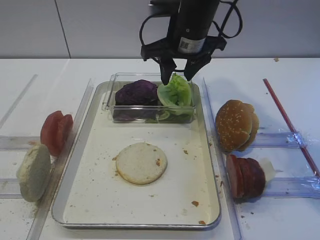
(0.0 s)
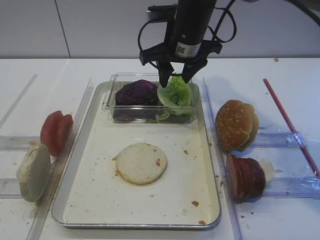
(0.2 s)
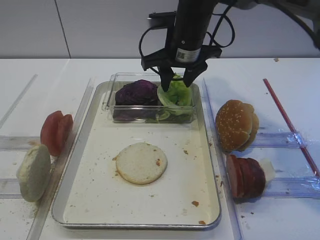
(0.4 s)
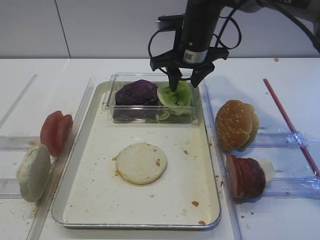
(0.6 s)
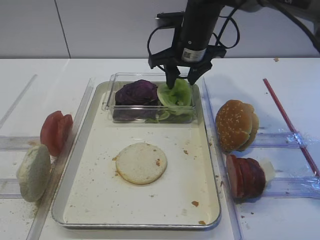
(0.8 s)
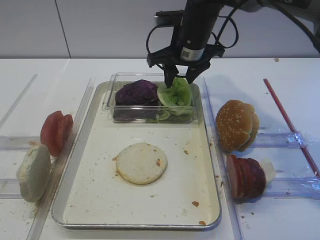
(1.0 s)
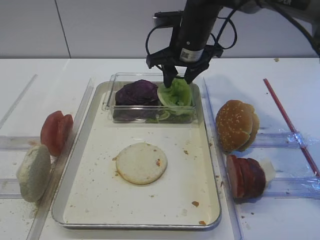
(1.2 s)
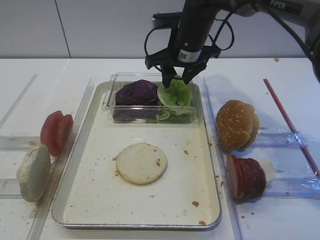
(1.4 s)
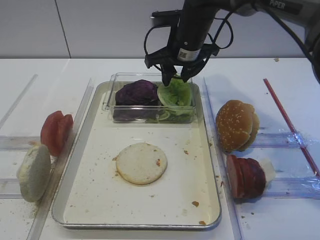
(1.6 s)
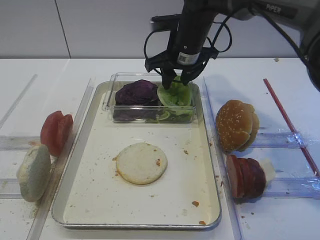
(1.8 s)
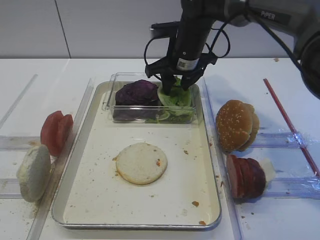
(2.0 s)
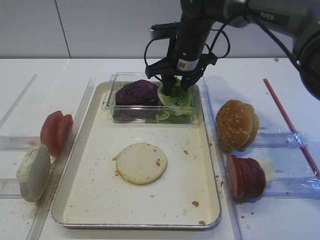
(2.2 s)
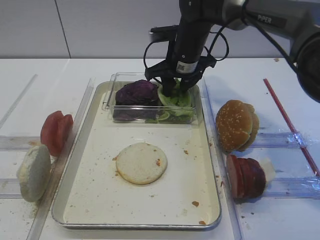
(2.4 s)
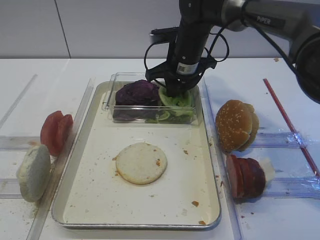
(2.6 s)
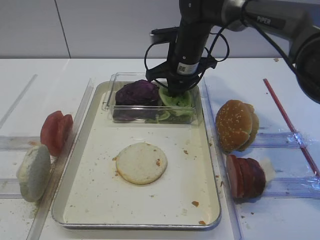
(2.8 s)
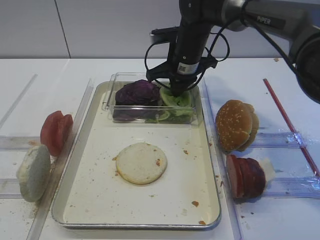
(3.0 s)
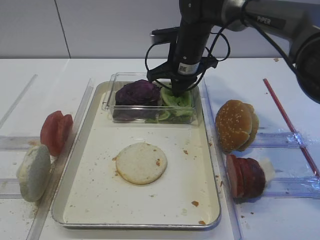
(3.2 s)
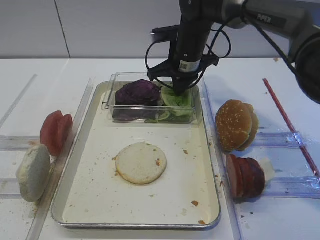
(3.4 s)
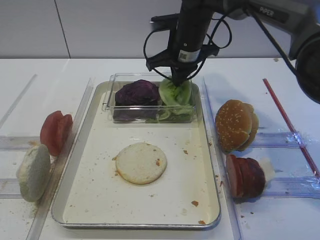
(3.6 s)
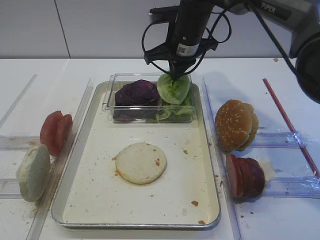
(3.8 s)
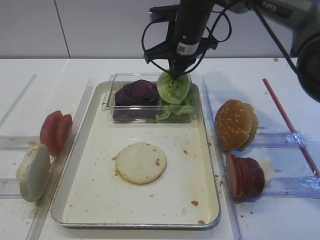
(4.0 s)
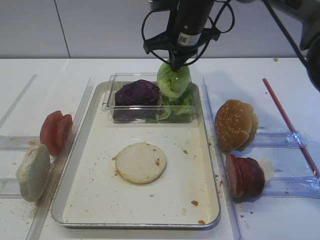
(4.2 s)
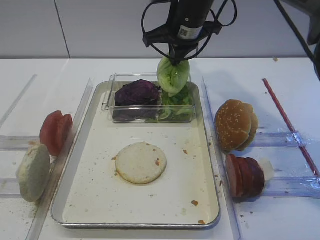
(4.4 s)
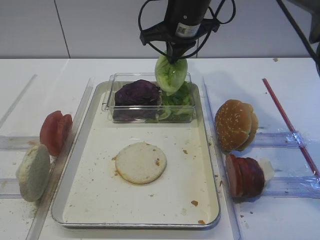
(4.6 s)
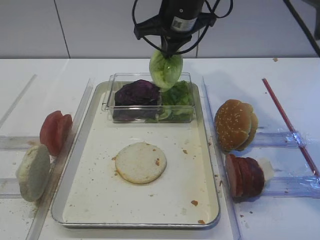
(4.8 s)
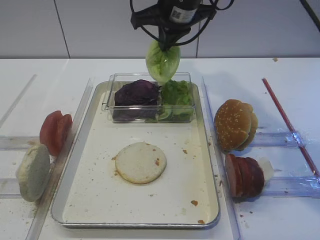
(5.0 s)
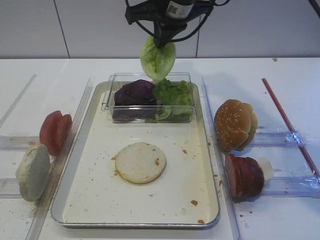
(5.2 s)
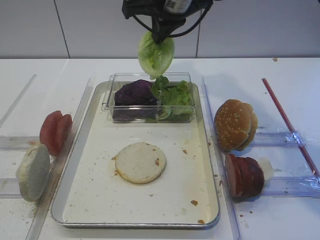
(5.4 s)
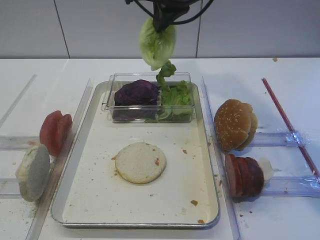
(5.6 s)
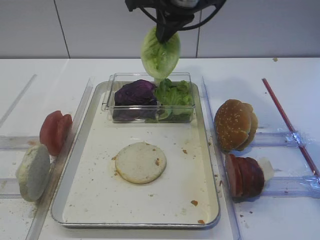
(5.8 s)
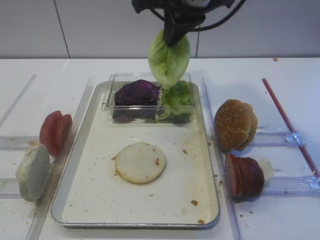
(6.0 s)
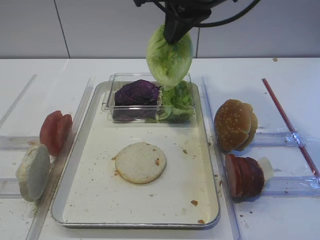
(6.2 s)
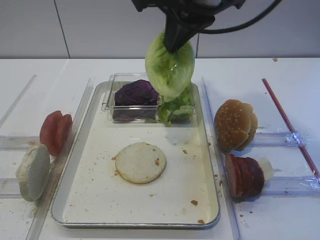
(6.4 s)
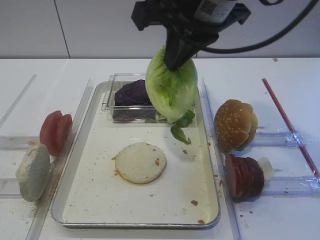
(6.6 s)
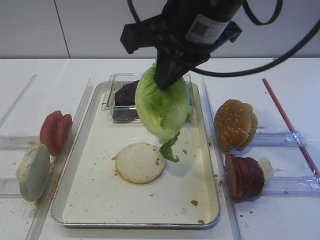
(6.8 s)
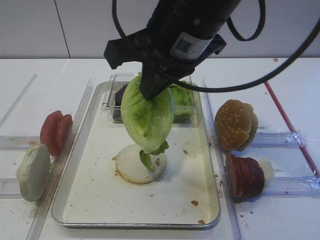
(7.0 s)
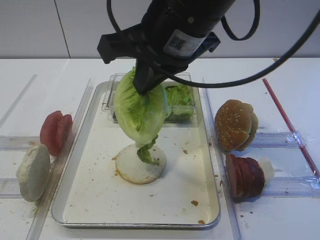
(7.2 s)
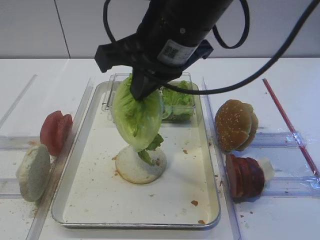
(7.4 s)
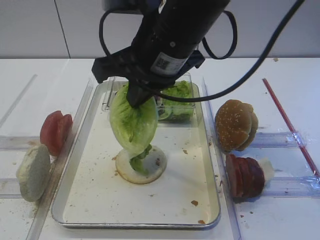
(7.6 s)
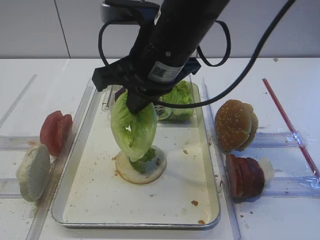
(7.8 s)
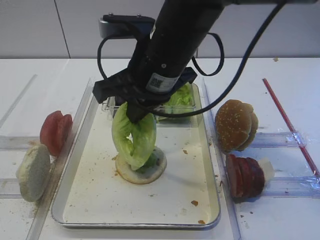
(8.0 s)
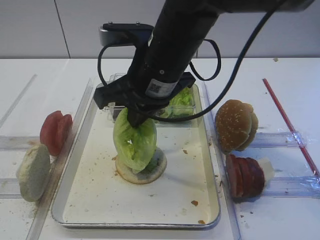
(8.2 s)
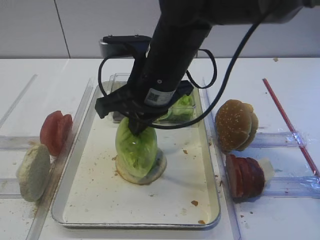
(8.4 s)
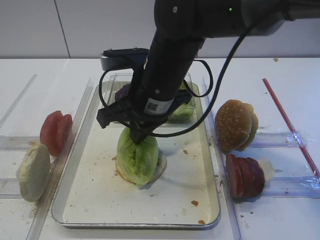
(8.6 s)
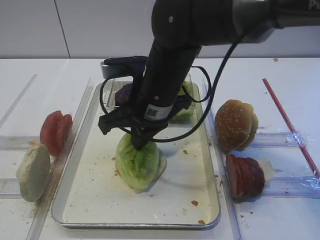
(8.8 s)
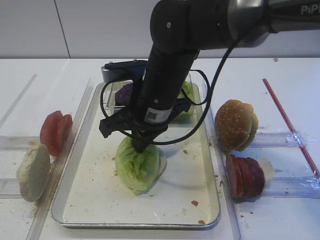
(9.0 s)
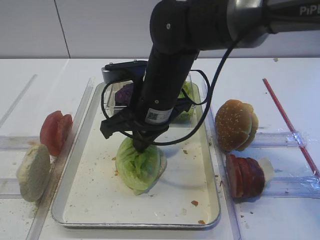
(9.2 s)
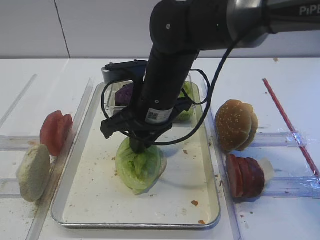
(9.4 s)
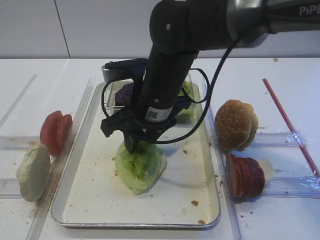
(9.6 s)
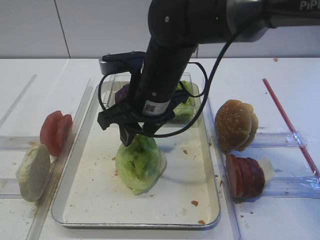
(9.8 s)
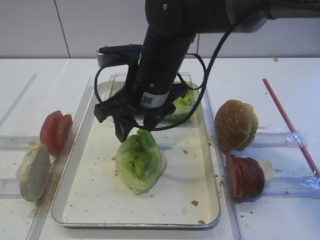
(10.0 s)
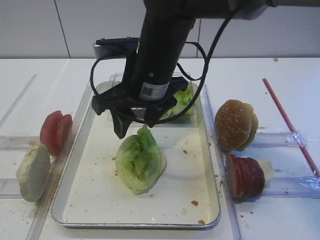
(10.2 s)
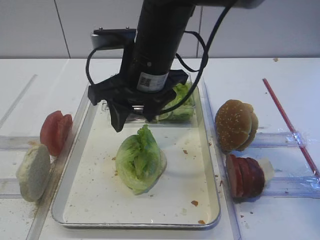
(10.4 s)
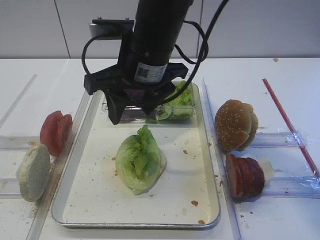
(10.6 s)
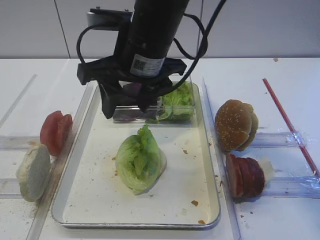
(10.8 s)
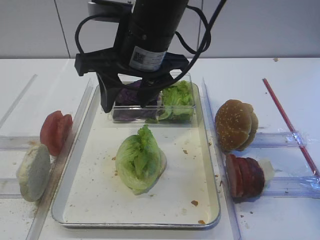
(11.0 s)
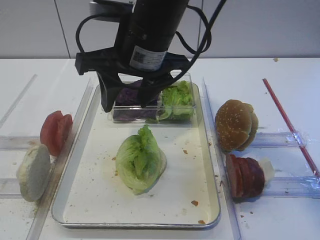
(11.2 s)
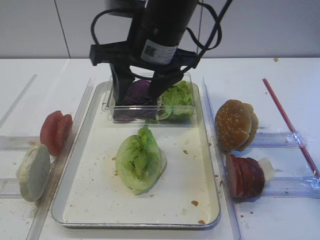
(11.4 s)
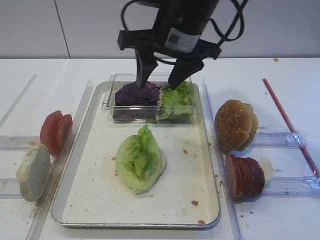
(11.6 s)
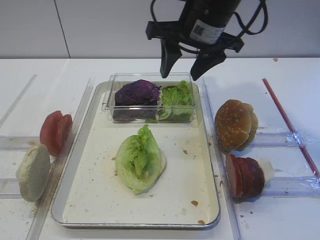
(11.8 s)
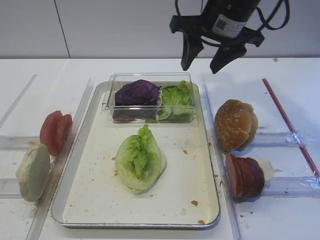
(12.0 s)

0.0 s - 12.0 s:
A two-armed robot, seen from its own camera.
Step, 0.0 s - 3.8 s: Pick up the lettuce leaf with the right gripper.
Step, 4.0 s - 9.8 s: Place the lettuce leaf on the bread slice with the right gripper.
0.0 s - 1.6 s: The right gripper shifts by about 5 cm.
1.6 s - 3.0 s: The right gripper closes.
3.0 s - 4.4 s: The right gripper is displaced upward by some 10 cm.
4.4 s - 6.0 s: The right gripper is displaced backward and upward by roughly 15 cm.
6.0 s - 7.6 s: The right gripper heads backward and downward, covering about 10 cm.
7.6 s - 9.0 s: The right gripper goes some 10 cm downward.
9.0 s - 10.4 s: The right gripper heads upward, covering about 5 cm, and opens.
10.4 s - 12.0 s: The right gripper travels to the right and forward by roughly 15 cm.

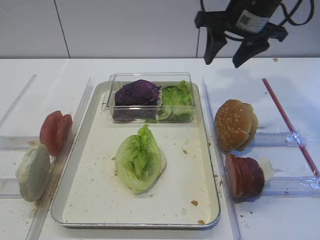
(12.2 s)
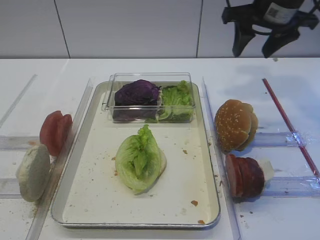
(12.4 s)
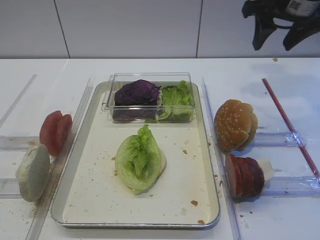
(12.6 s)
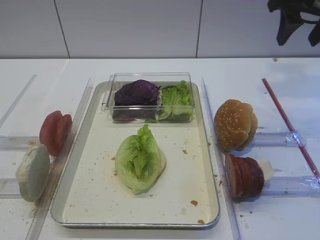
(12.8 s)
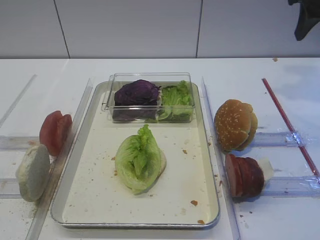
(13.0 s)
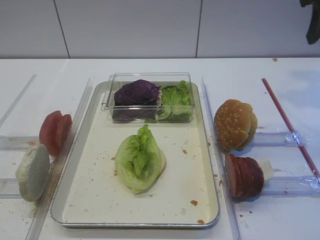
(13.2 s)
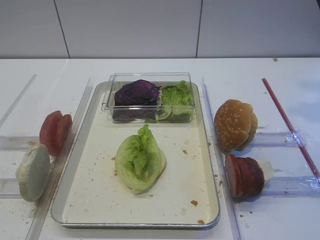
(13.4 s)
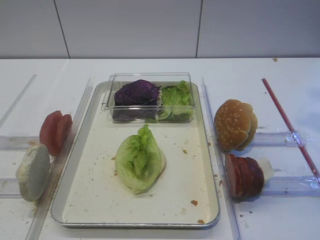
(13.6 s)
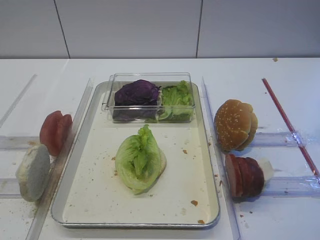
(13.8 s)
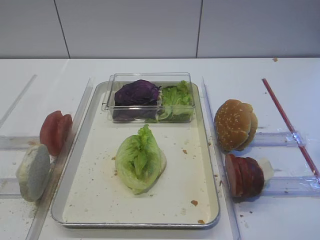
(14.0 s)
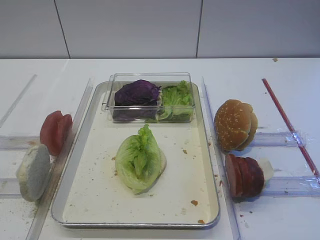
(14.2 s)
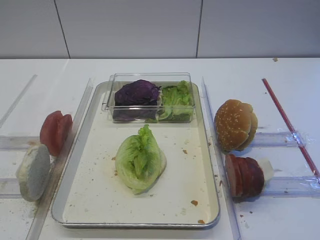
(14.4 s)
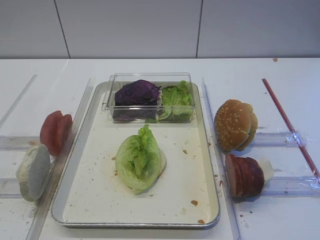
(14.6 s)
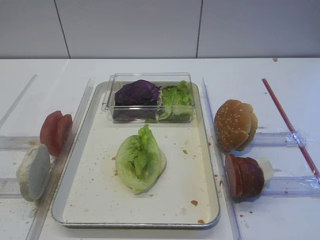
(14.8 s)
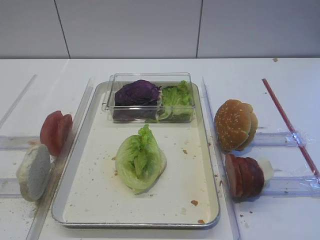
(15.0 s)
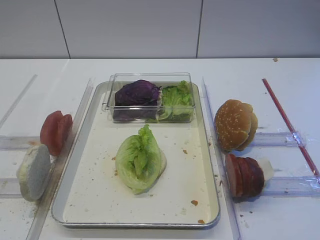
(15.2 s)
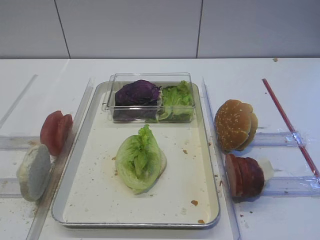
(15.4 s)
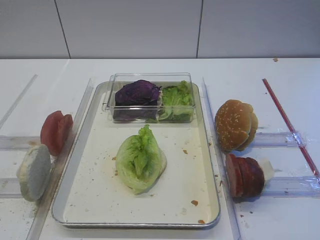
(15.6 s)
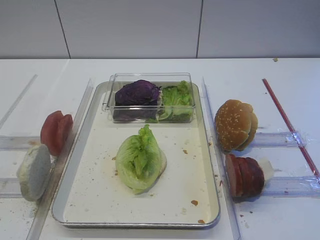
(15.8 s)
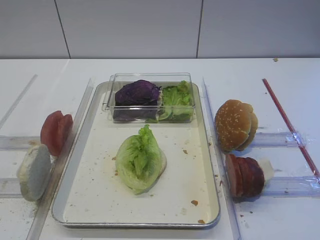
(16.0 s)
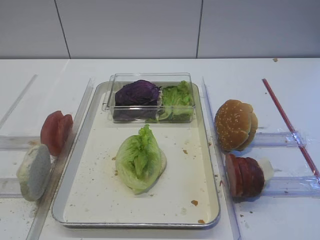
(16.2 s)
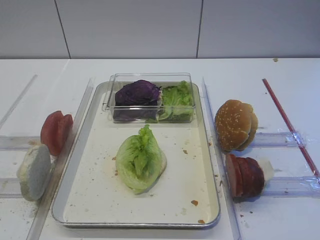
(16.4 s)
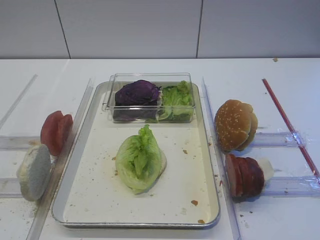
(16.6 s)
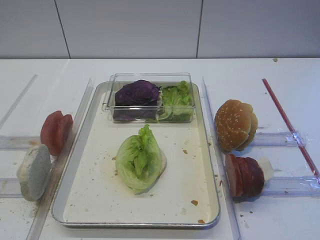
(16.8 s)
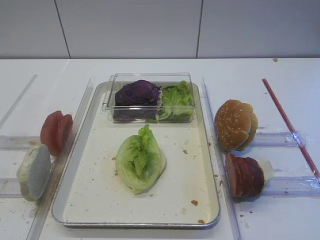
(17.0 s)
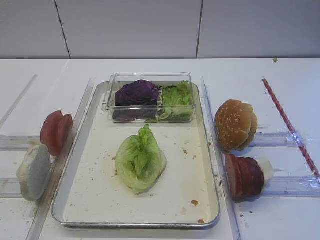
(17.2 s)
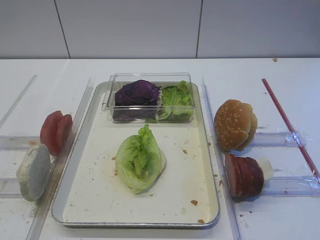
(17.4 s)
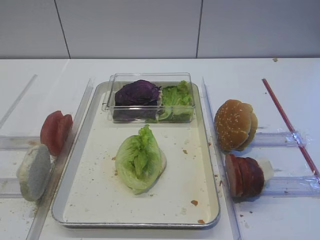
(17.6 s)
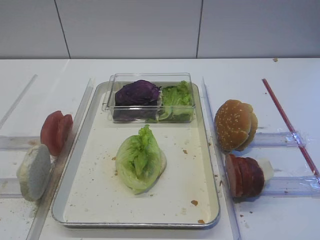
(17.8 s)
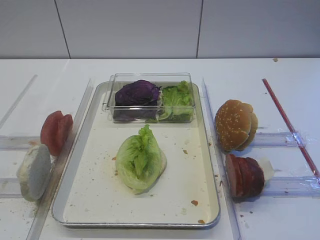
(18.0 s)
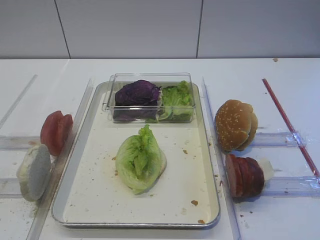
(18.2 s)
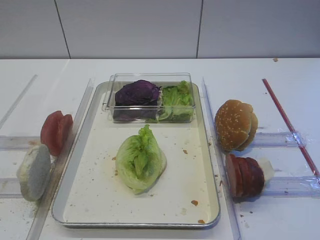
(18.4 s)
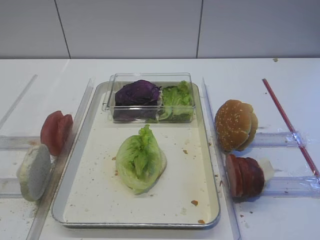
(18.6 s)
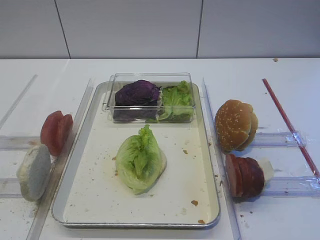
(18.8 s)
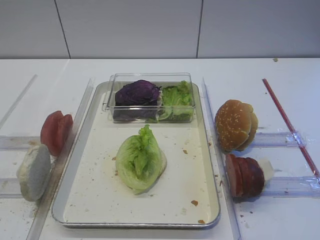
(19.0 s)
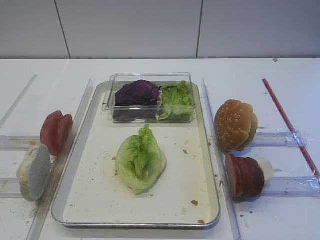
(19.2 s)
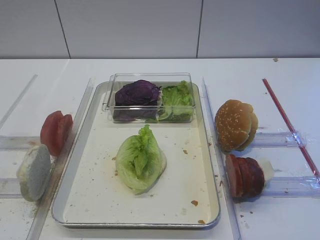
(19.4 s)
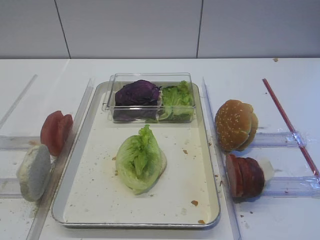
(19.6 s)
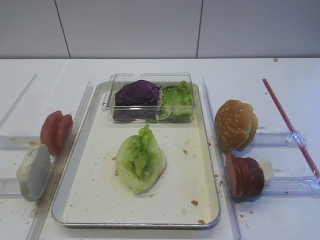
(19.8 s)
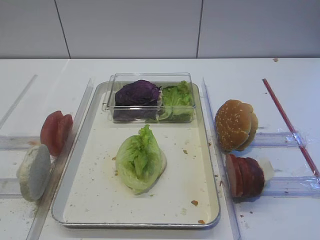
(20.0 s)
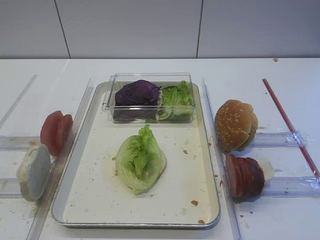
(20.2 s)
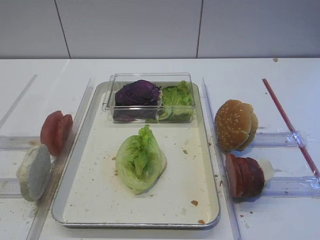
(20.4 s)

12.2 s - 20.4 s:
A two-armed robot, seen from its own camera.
12.2 s - 13.8 s: The right gripper travels backward and to the right by approximately 20 cm.
18.8 s - 20.4 s: Neither gripper changes place.

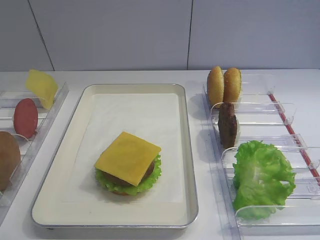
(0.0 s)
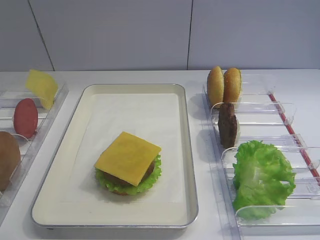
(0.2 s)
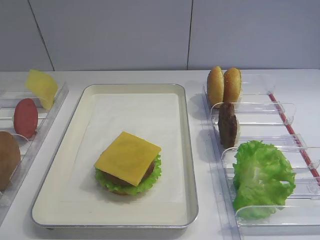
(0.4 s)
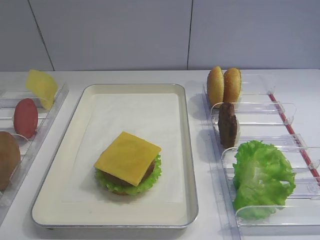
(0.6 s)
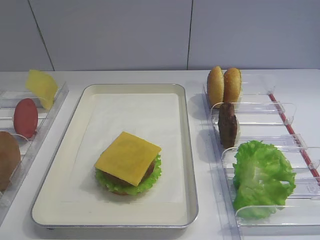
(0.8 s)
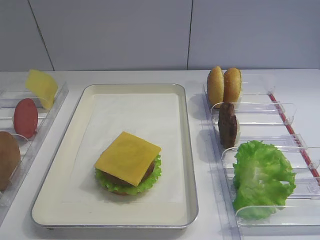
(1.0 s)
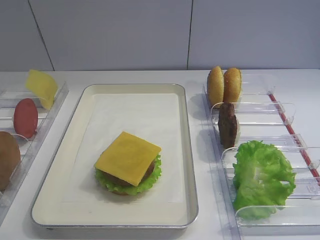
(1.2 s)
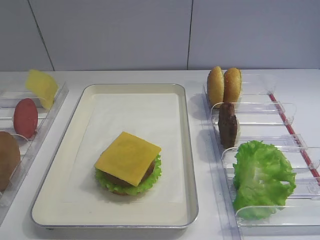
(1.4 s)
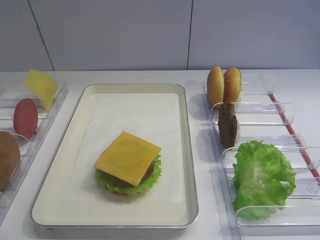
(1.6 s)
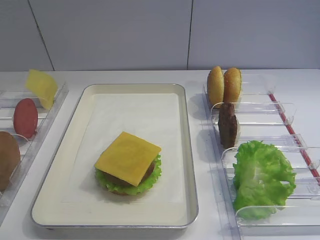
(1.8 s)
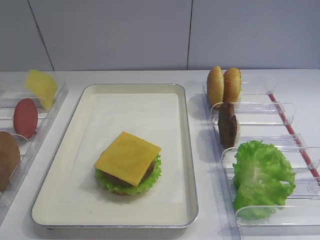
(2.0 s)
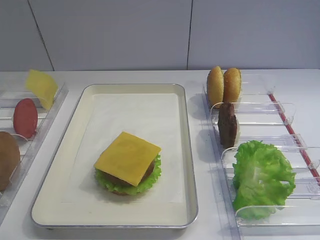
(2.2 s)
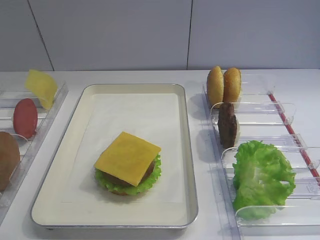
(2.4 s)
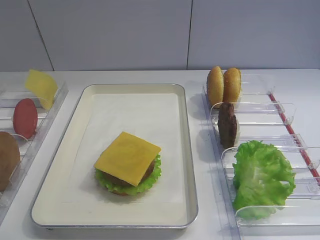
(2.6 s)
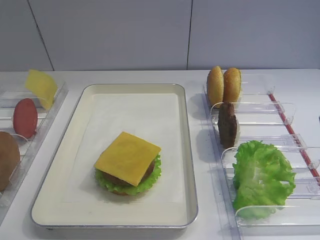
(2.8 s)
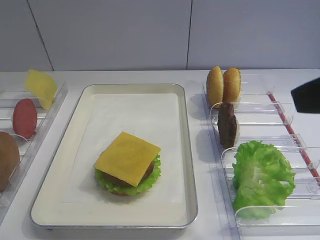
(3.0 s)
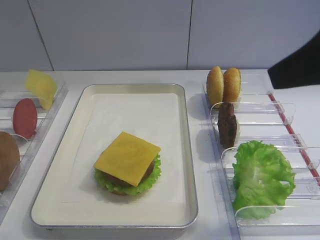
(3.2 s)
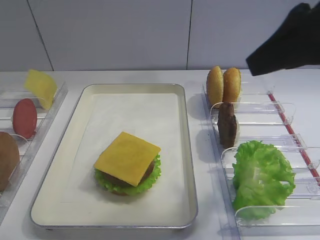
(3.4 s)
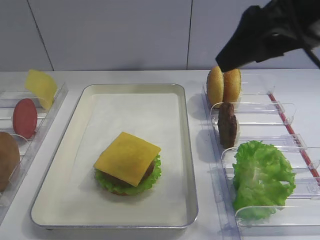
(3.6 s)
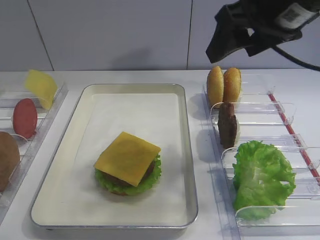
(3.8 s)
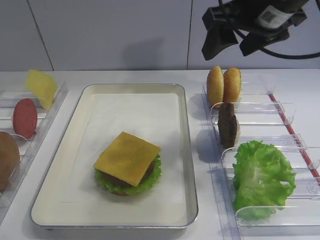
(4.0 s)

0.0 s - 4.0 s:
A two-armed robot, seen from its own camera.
2.6 s - 4.0 s: The right gripper shifts some 25 cm forward.
